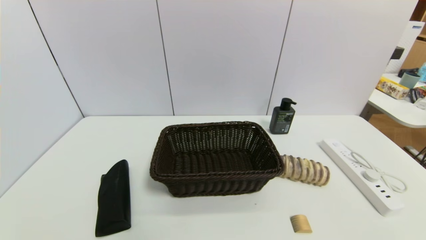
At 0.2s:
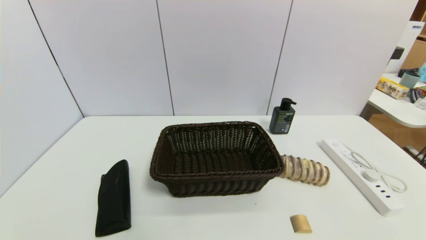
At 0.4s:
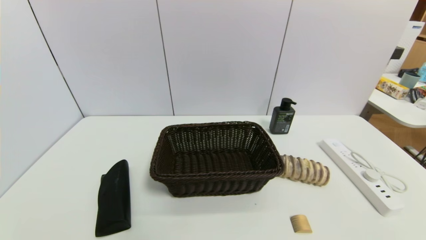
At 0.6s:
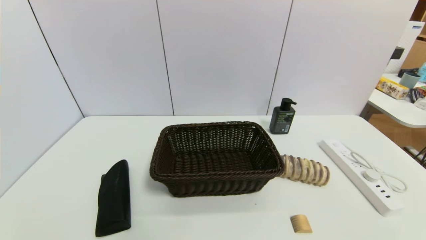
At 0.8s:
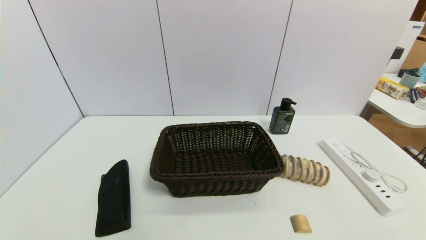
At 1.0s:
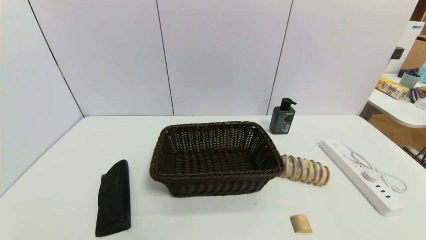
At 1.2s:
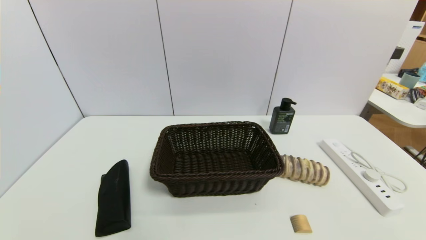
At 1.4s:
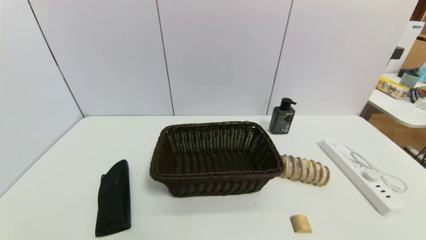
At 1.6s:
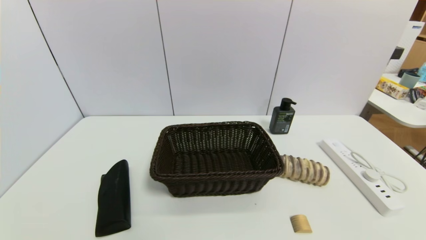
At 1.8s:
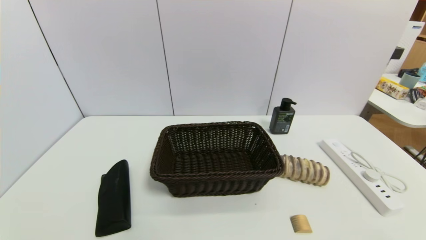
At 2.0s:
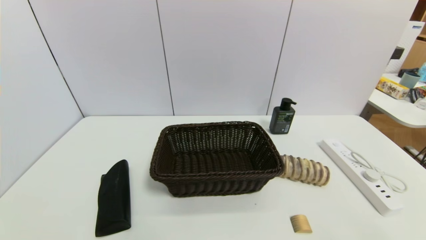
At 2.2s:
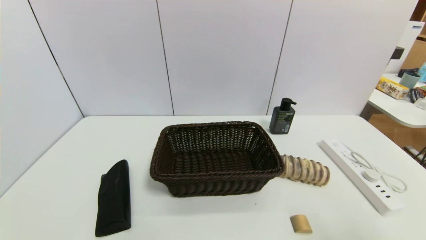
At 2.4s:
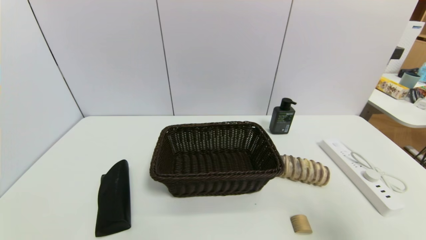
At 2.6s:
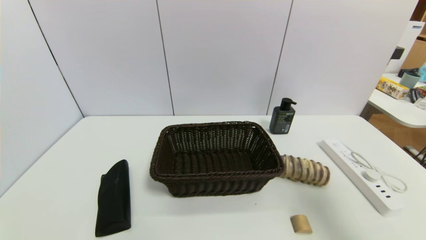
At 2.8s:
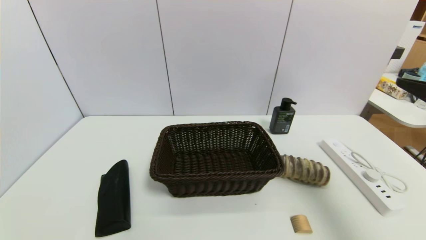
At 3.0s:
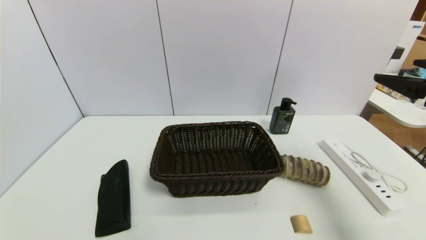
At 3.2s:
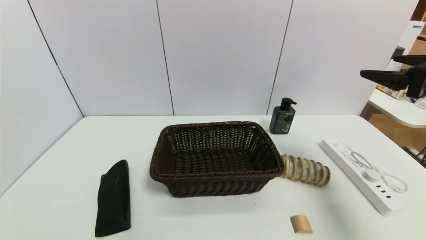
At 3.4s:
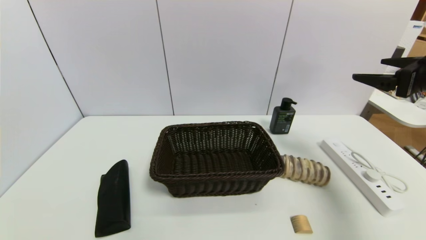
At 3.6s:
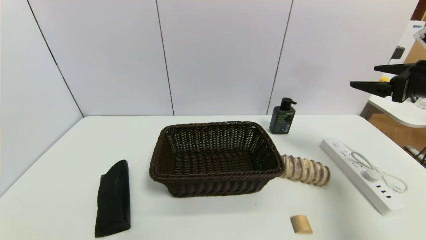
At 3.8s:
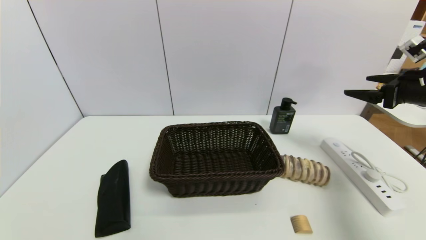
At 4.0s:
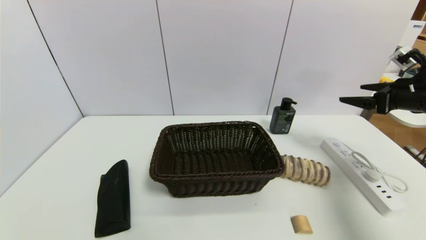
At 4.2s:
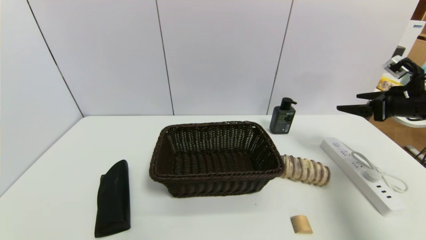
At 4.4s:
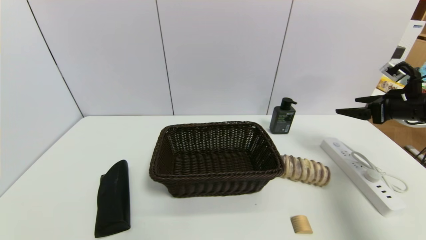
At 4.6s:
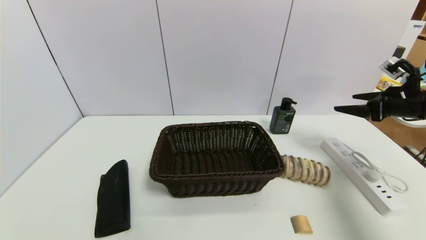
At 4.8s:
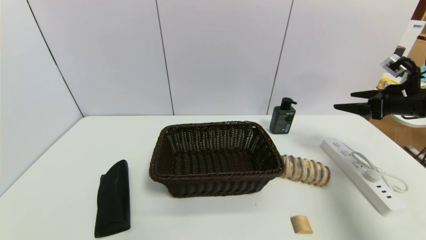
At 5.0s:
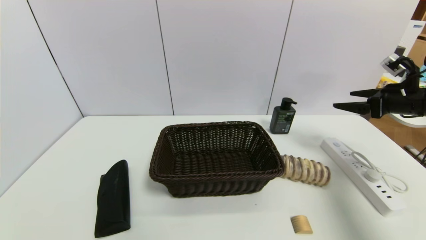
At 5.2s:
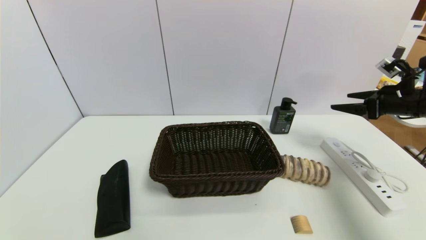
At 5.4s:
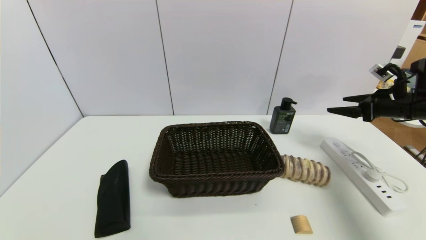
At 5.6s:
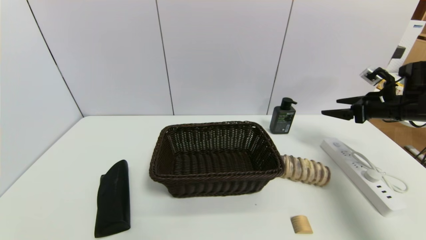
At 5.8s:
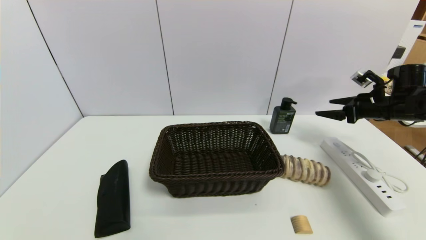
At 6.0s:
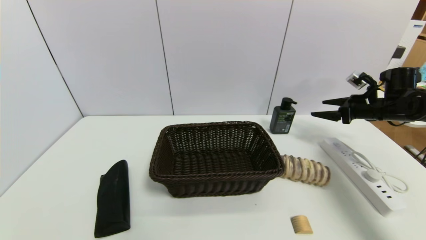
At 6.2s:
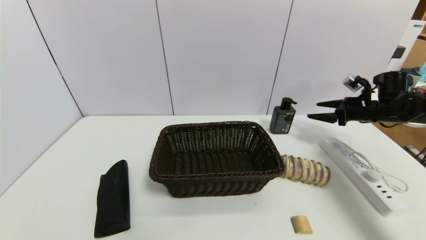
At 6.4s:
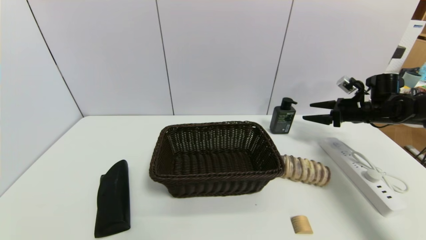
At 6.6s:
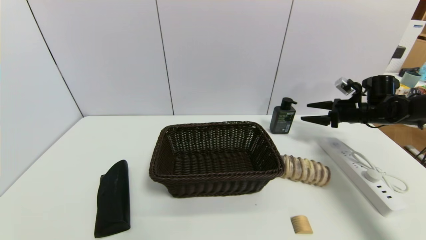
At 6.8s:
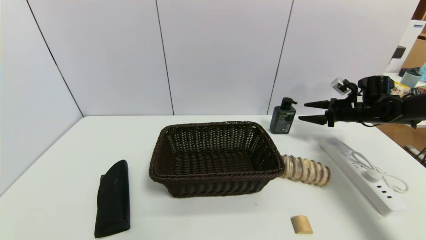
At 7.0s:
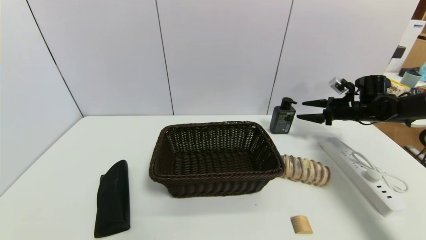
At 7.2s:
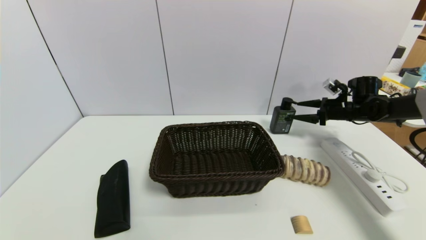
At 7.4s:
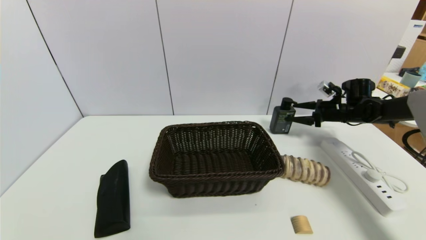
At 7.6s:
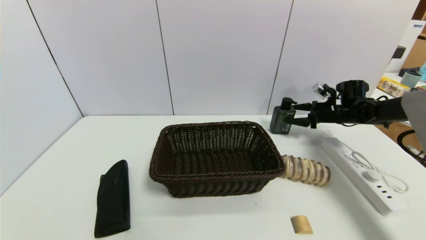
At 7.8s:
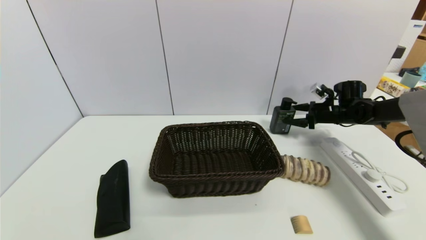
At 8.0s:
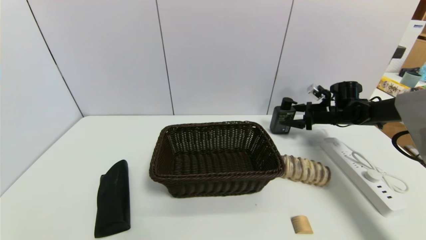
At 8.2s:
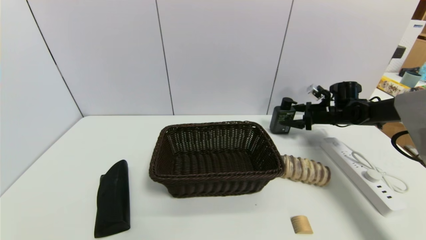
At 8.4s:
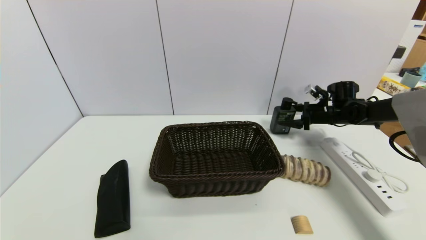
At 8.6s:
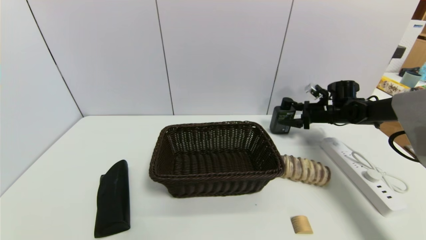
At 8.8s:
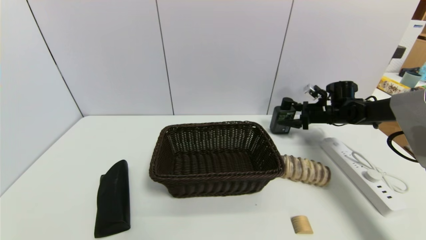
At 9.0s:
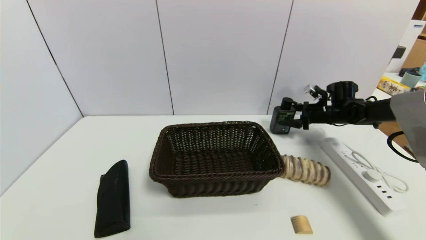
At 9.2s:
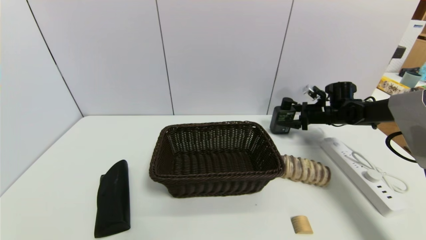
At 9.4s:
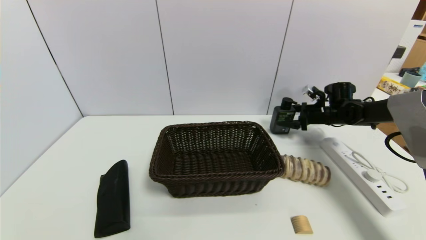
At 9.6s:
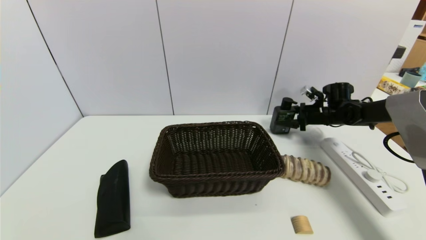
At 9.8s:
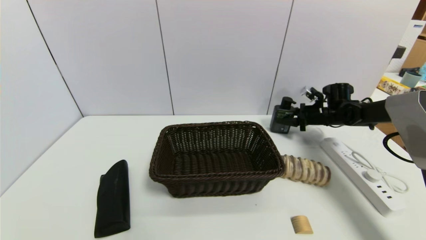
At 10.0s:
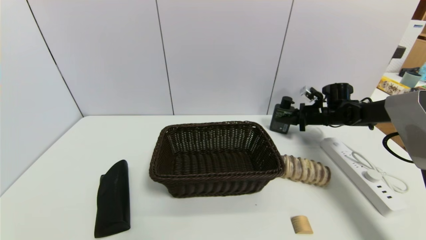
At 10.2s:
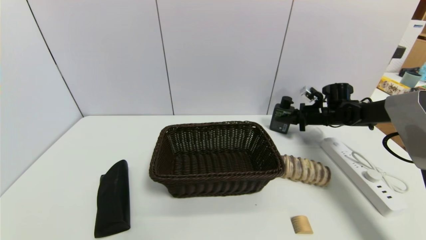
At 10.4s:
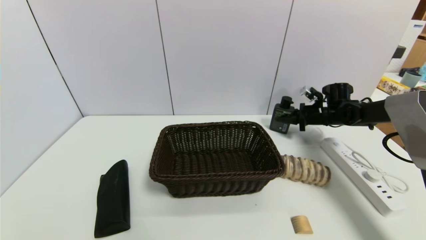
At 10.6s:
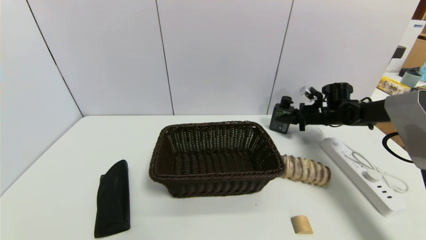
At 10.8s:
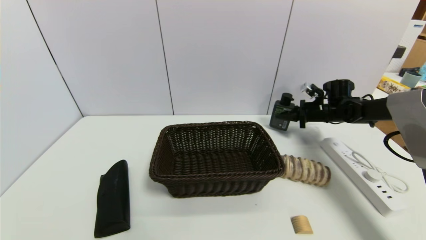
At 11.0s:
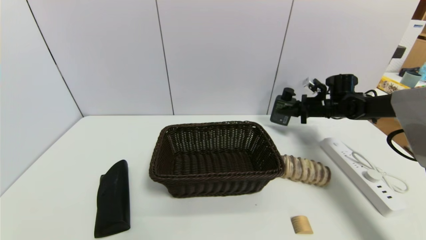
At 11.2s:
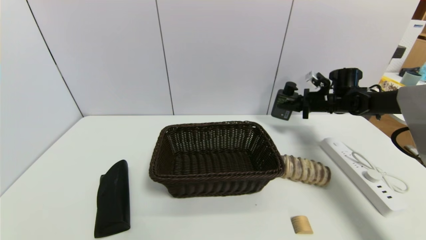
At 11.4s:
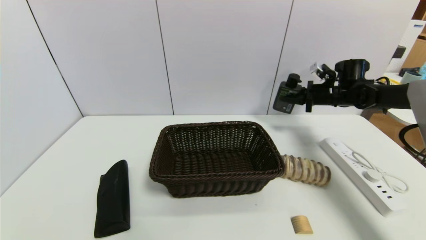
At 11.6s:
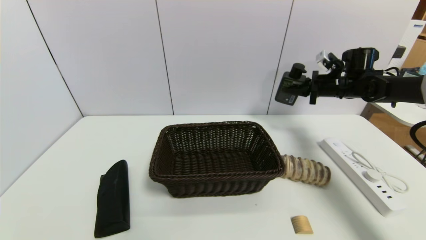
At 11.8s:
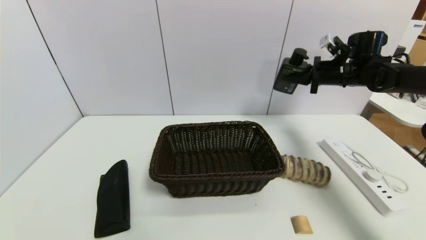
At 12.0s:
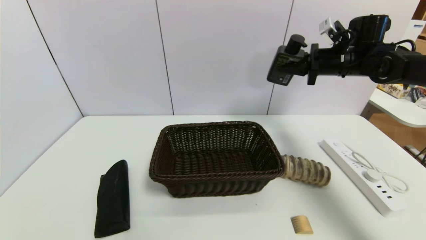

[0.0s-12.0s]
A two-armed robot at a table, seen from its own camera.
Task of the whole recording: use a gripper to pick the target object and place on the brown basket.
Step, 0.0s to 10.6s: Grasp the hard facial cleanser with the right gripper.
1.6s to 3.0s: The right gripper is displaced forward and upward by some 30 cm.
3.0s to 4.4s: The right gripper is displaced forward, downward and to the right by some 15 cm.
4.4s to 6.0s: The right gripper travels forward and downward by approximately 10 cm.
6.0s to 7.6s: The right gripper is displaced forward and downward by roughly 10 cm.
7.6s to 9.0s: There are only small adjustments of the grippers.
9.0s to 10.4s: The right gripper closes.
10.4s to 12.0s: The right gripper moves upward, approximately 20 cm.

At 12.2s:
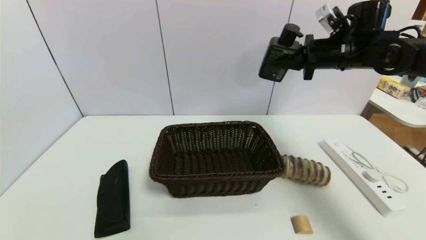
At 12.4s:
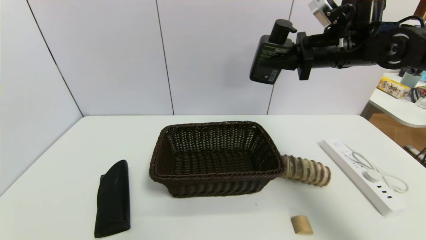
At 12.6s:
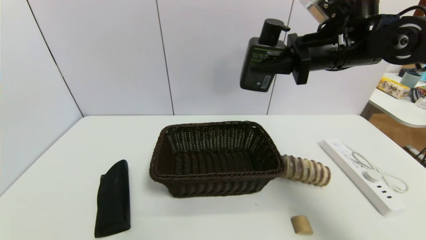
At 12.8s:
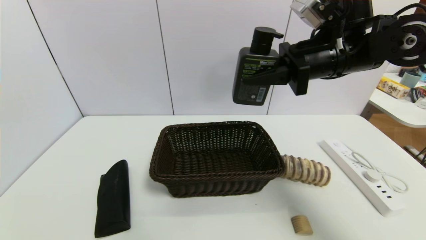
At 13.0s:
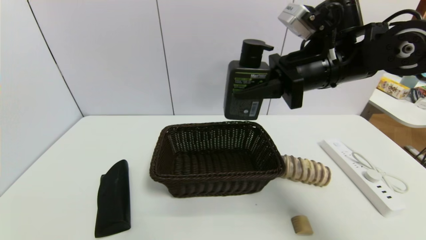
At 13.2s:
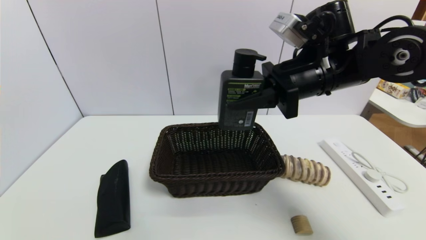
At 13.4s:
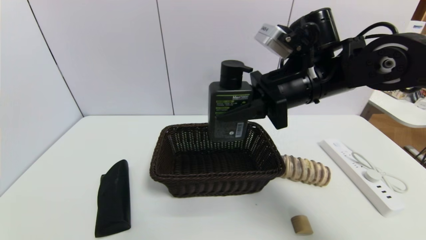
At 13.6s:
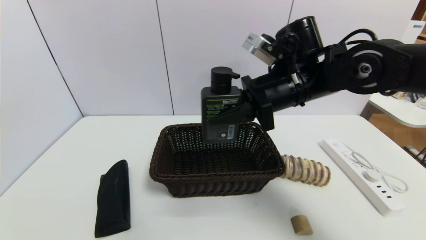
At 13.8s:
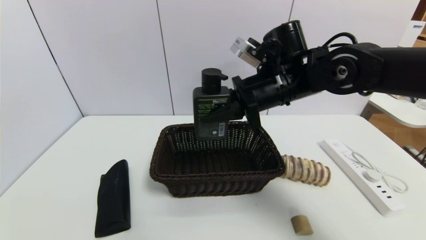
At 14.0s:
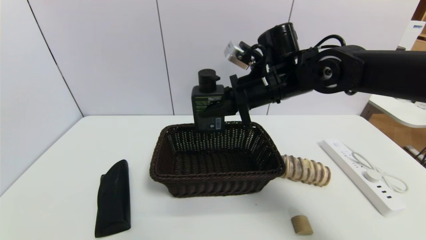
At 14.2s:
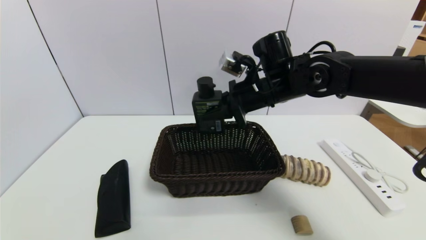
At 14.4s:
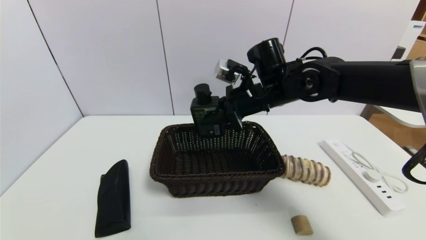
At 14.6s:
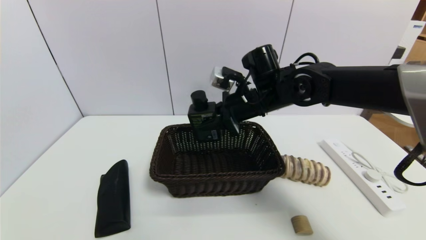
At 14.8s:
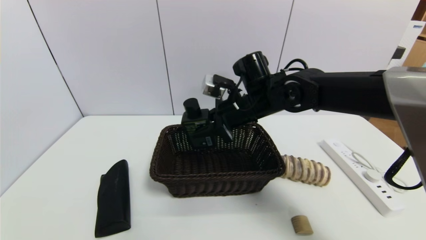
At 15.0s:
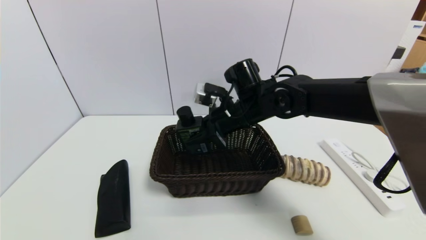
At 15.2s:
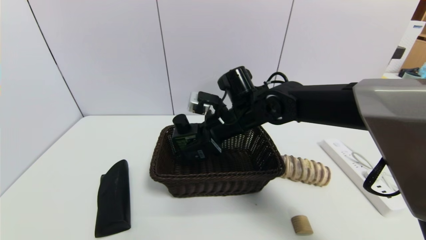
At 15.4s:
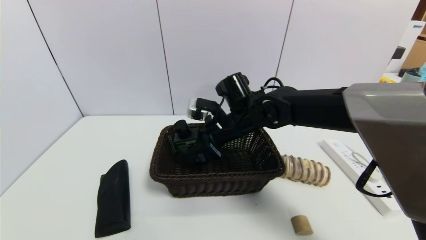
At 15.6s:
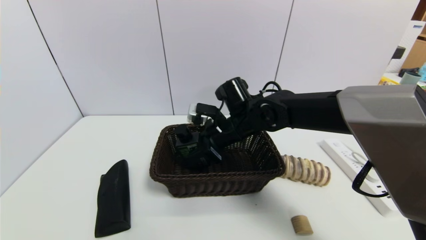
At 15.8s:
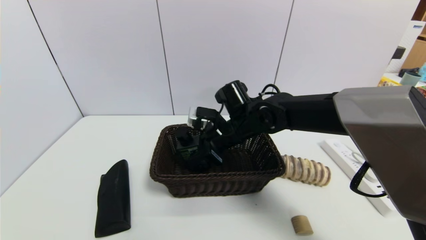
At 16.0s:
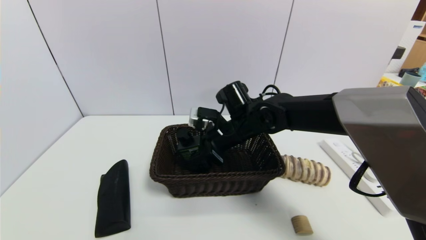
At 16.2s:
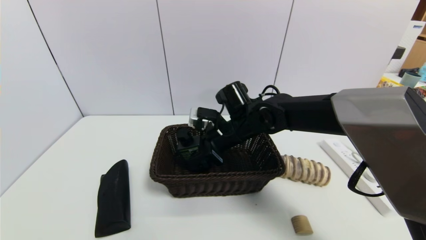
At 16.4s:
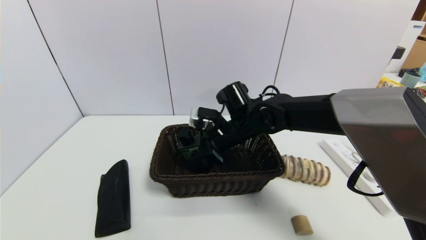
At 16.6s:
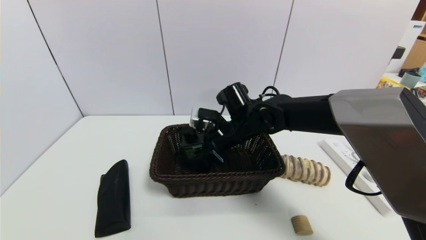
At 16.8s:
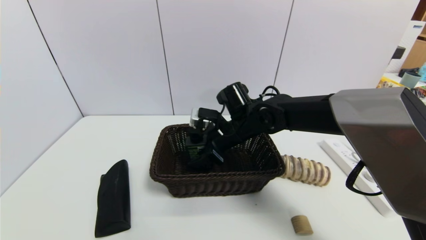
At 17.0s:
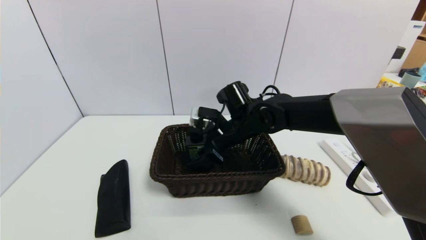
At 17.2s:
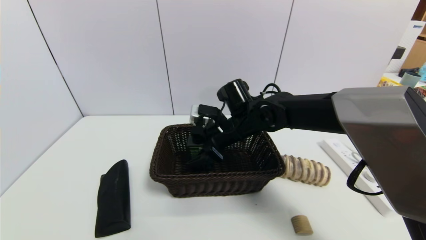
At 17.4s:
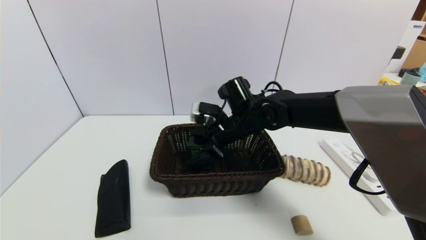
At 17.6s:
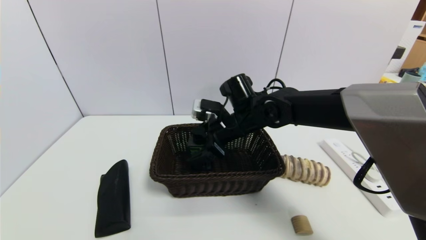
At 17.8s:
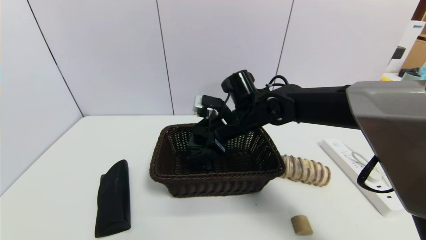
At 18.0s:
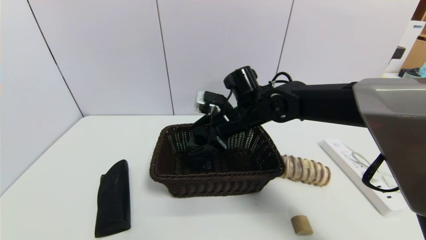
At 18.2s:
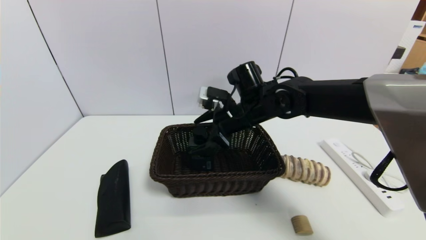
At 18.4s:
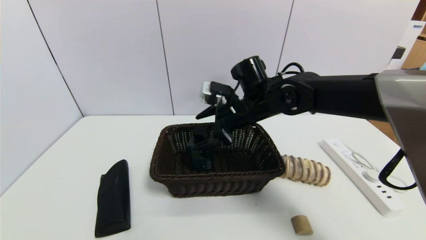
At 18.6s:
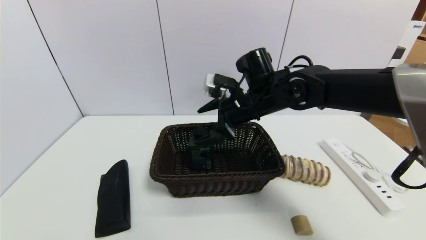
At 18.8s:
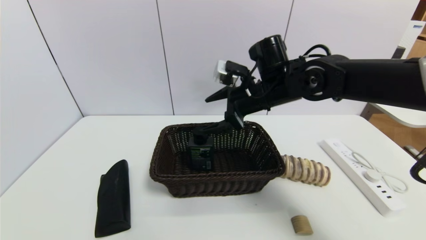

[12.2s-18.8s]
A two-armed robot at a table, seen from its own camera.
Task of the whole recording: use a gripper to pick the target object and place on the brown basket.
12.2s to 13.8s: The right gripper goes about 15 cm to the left and backward.
13.8s to 15.4s: The right gripper goes some 10 cm downward and to the left.
15.4s to 17.2s: The right gripper opens up.
17.2s to 18.8s: The right gripper heads upward and to the right, covering roughly 10 cm.
